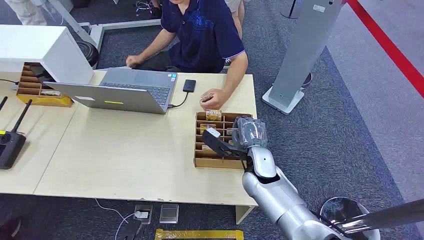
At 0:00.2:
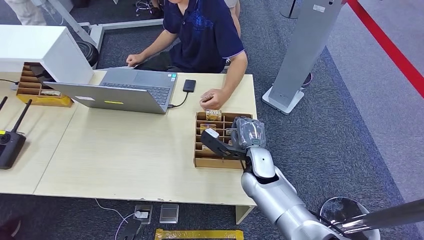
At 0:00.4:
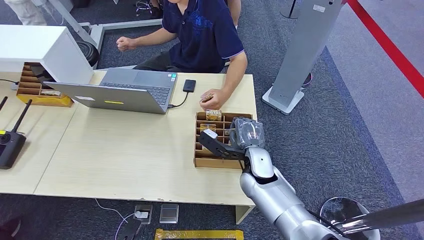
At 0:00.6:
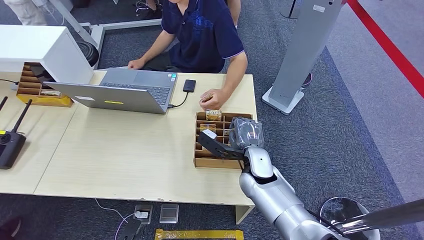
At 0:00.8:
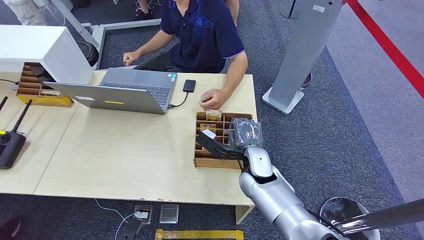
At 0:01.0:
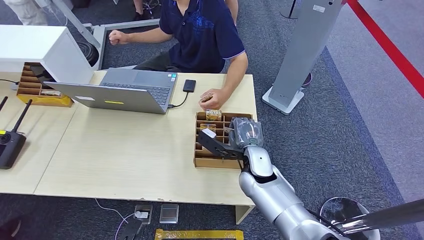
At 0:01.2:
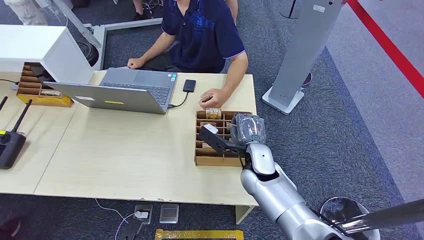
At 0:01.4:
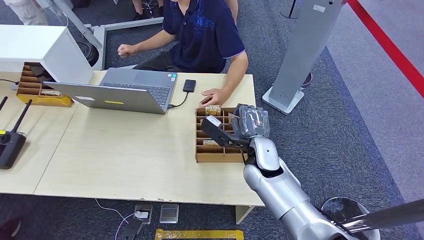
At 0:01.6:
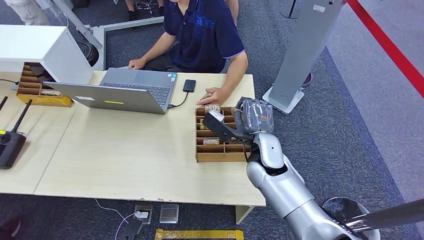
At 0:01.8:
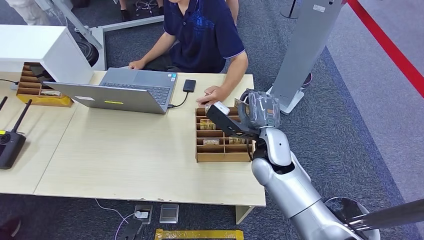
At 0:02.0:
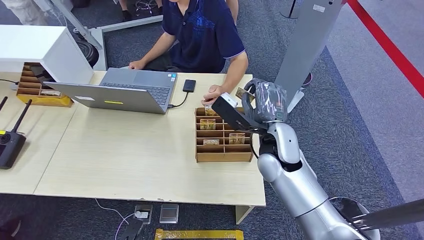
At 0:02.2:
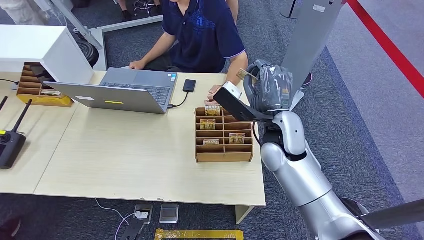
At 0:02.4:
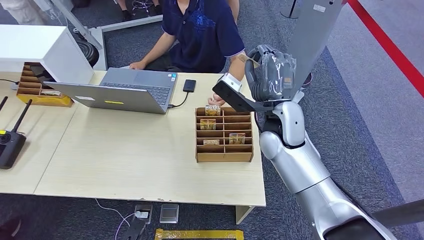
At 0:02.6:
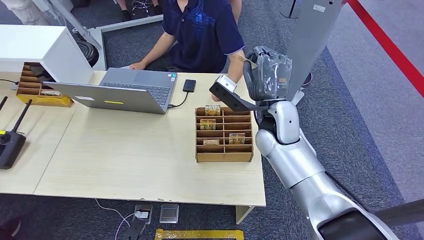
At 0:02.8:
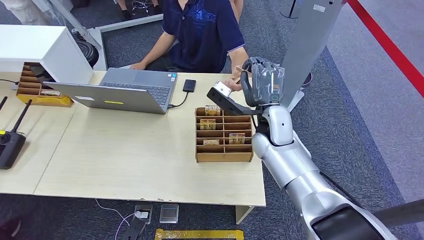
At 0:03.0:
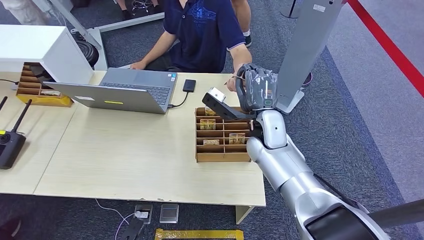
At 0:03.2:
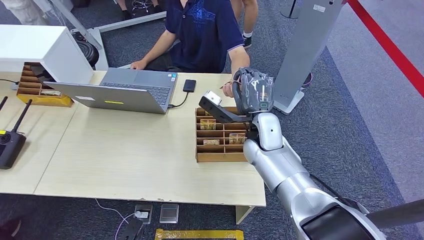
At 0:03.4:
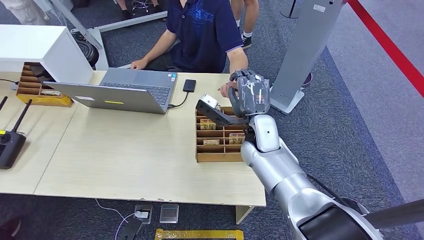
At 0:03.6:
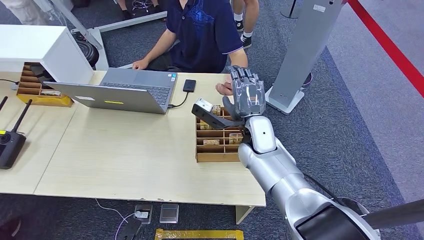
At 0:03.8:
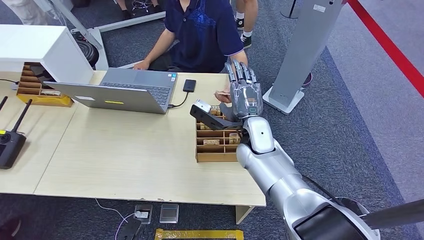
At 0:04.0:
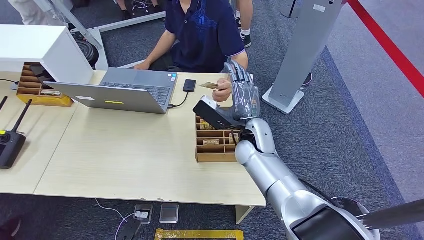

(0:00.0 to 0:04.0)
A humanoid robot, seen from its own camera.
Step, 0:00.0 - 0:01.8: Pick up the key card from the card box.
Step, 0:02.6 - 0:04.0: Hand the key card to the target.
0:01.4 - 0:02.6: The right hand goes some 10 cm upward.
0:02.6 - 0:04.0: The right hand is displaced downward by some 5 cm.

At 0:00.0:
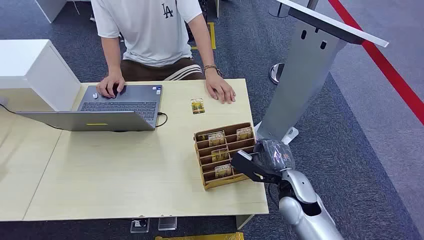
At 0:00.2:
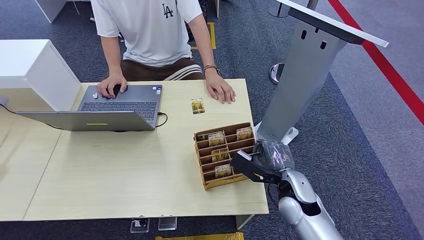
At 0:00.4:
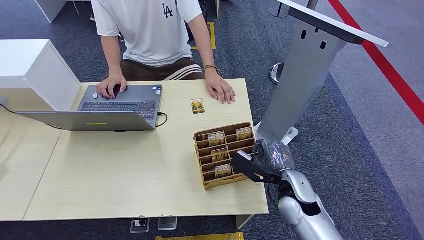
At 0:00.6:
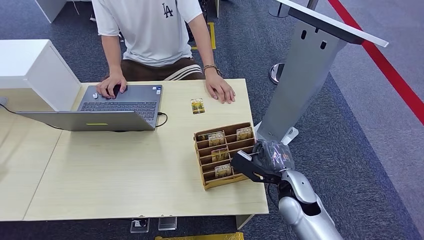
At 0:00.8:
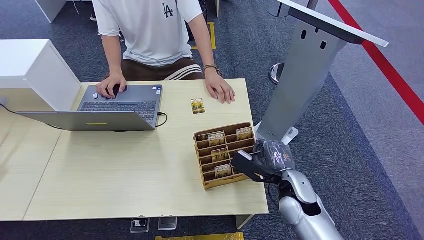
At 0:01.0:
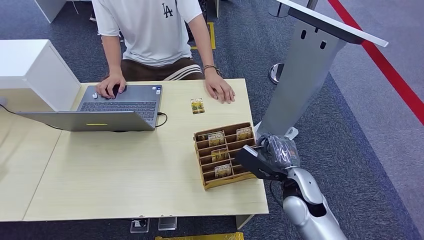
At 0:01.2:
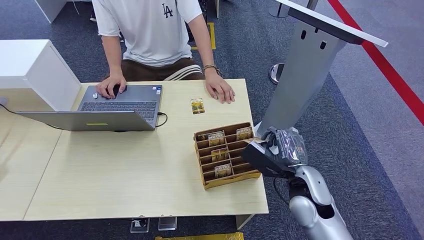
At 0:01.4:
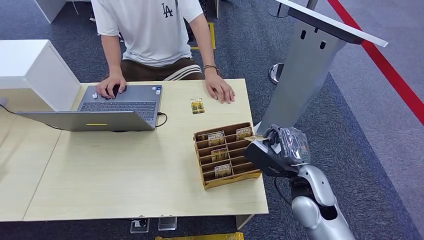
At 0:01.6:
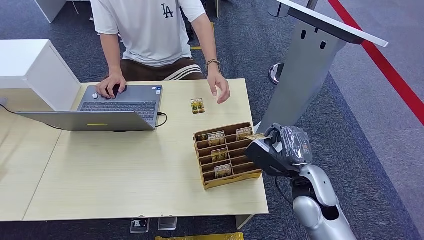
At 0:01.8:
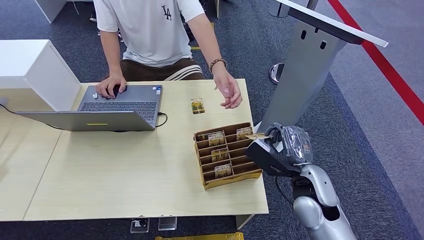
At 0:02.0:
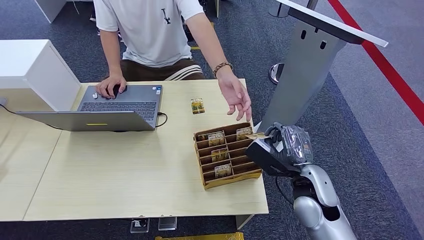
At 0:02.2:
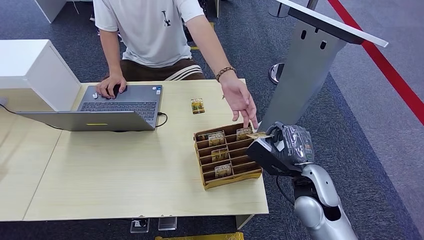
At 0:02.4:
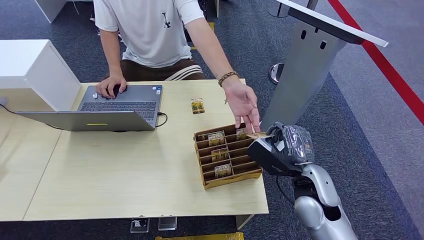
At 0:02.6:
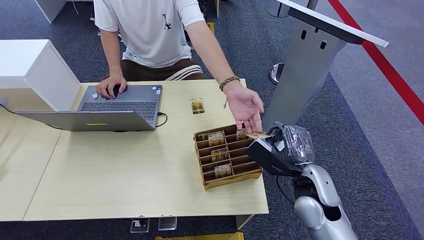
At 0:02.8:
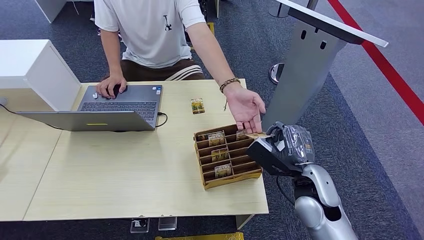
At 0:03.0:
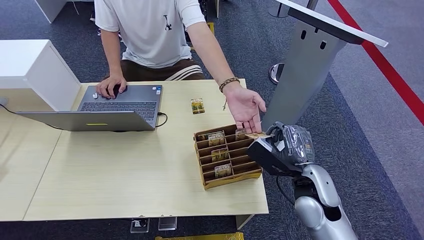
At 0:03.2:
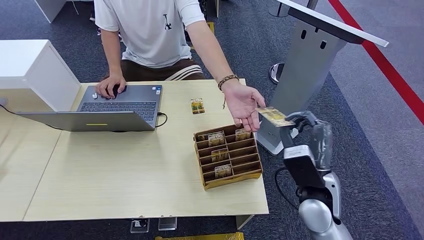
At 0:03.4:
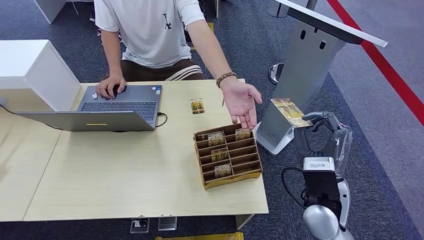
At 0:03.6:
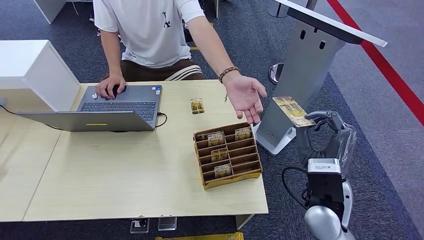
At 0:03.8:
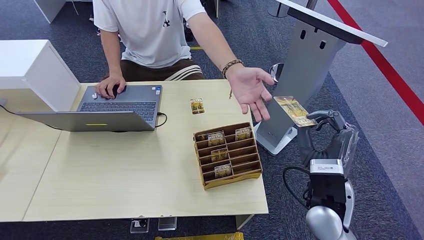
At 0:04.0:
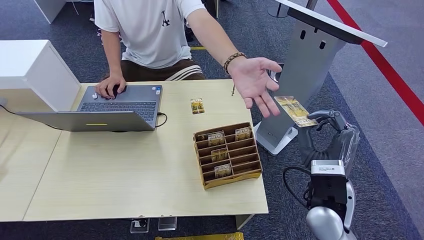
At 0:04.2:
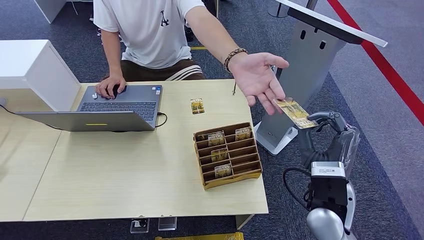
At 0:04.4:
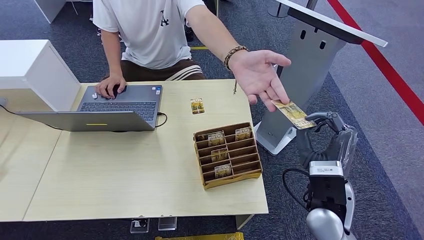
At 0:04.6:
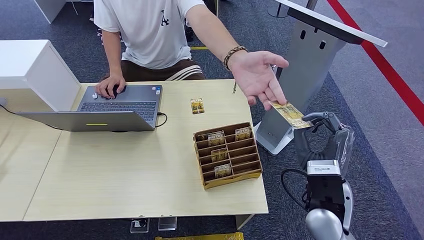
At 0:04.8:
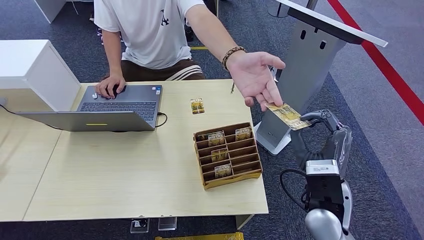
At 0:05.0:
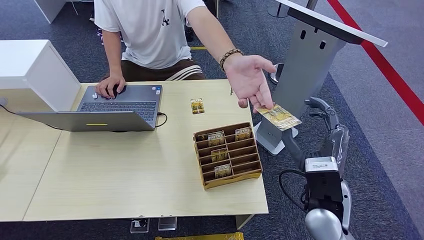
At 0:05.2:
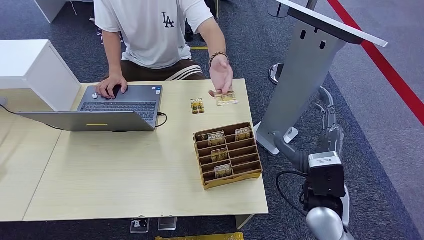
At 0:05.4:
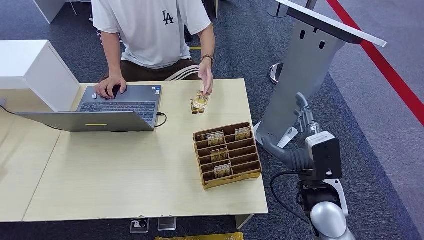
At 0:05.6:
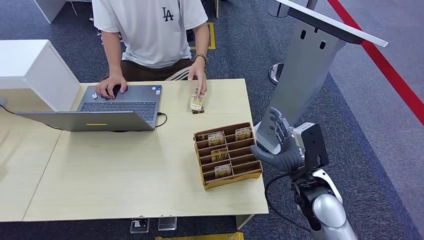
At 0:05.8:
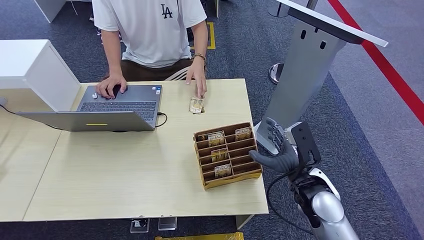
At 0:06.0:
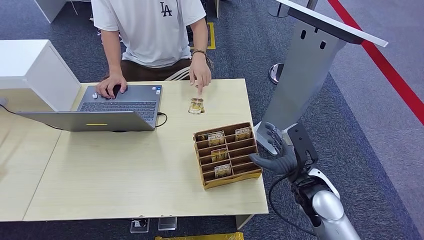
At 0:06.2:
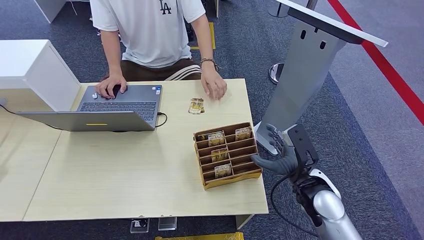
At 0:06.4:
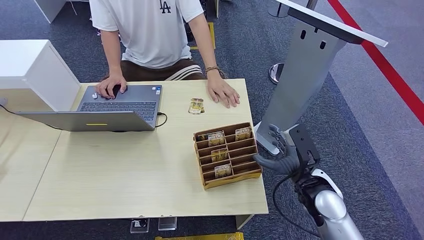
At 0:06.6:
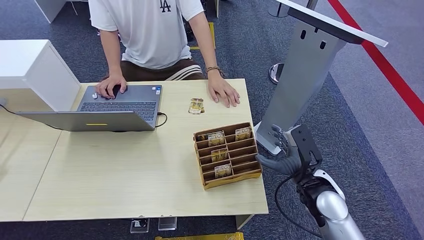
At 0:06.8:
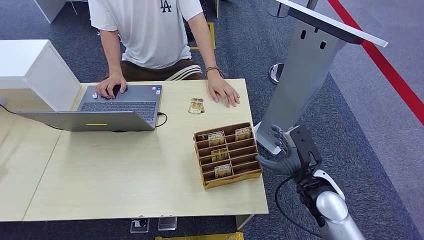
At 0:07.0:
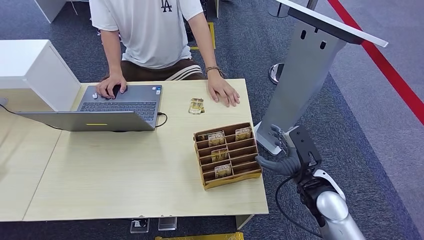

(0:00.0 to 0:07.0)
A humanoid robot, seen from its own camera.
Step, 0:00.0 - 0:03.2: Pick up the key card from the card box.
Step, 0:03.4 - 0:07.0: Hand the key card to the target.
0:01.4 - 0:05.6: The hands stay close to where they were, moving slightly.
0:05.6 - 0:07.0: The hands make only small movements.

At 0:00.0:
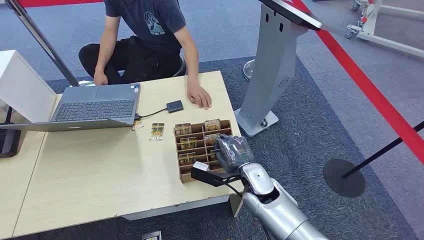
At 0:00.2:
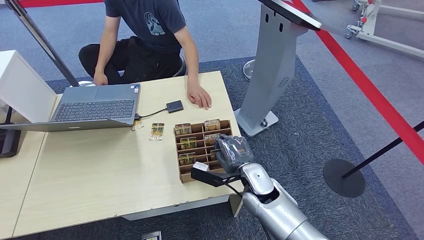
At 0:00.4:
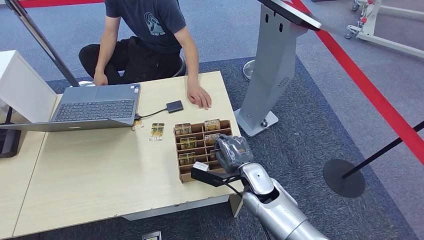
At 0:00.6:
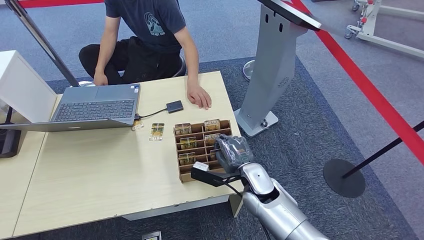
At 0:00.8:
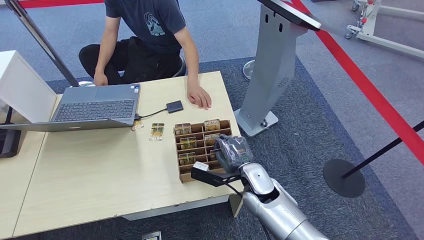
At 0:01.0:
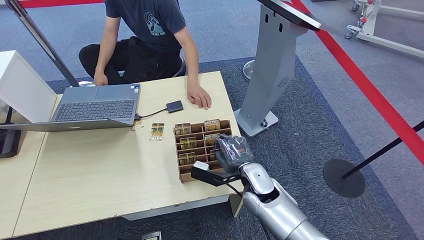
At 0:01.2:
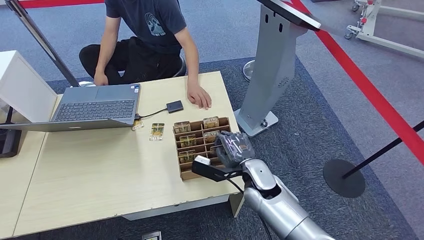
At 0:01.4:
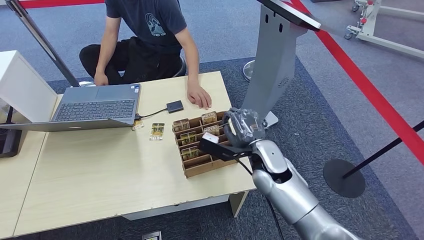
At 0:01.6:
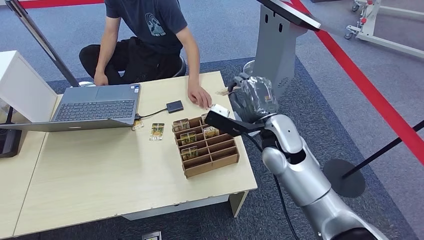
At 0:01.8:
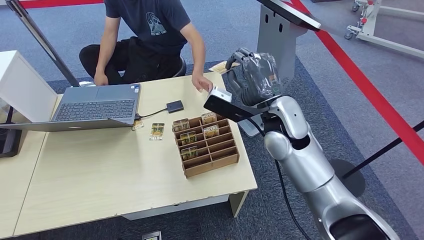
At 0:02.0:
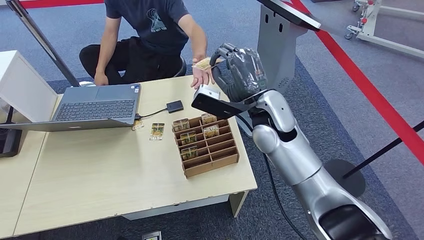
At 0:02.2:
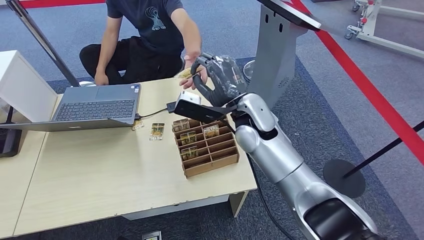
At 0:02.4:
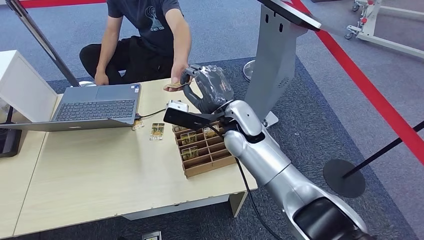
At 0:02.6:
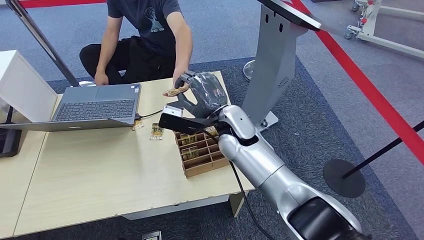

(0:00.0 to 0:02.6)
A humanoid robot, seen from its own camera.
Step, 0:00.0 - 0:01.4: Pick up the key card from the card box.
Step, 0:01.8 - 0:02.6: Hand the key card to the target.
0:01.2 - 0:02.6: The right hand goes roughly 15 cm upward, forward and to the left.
